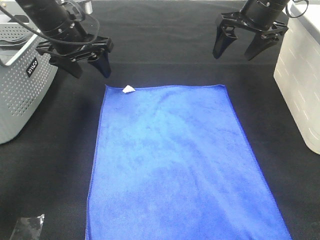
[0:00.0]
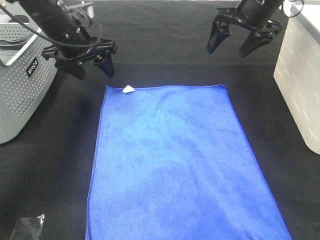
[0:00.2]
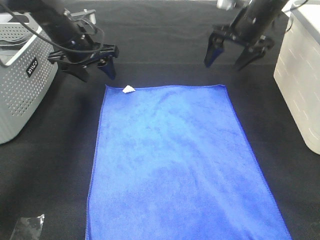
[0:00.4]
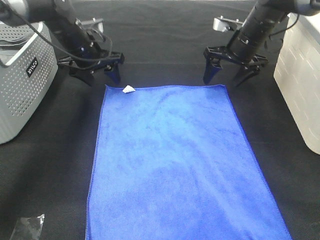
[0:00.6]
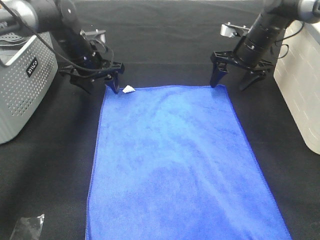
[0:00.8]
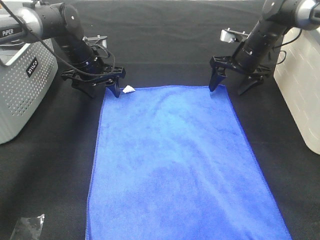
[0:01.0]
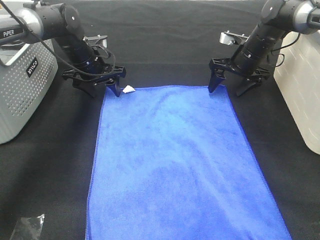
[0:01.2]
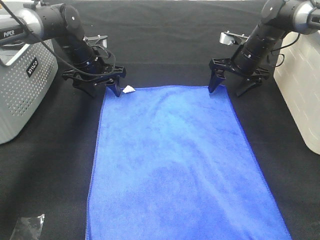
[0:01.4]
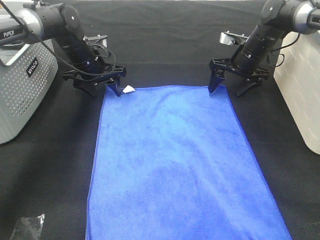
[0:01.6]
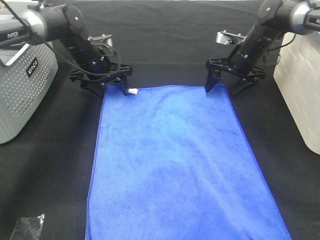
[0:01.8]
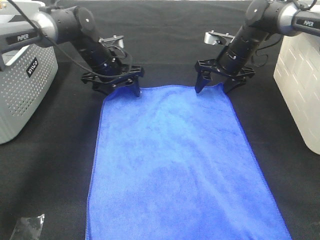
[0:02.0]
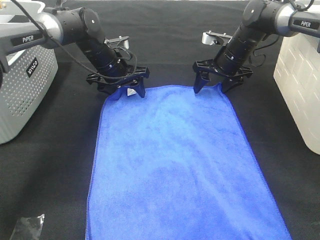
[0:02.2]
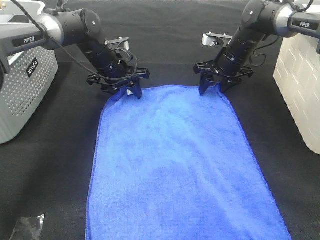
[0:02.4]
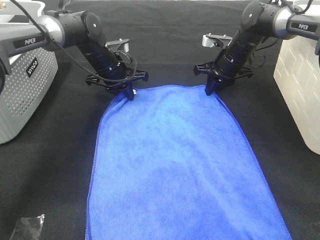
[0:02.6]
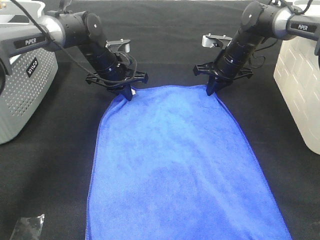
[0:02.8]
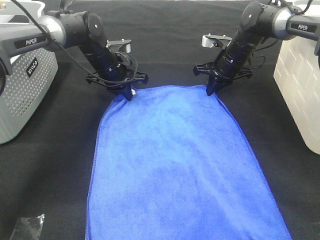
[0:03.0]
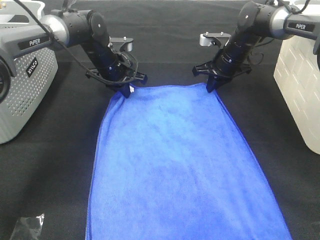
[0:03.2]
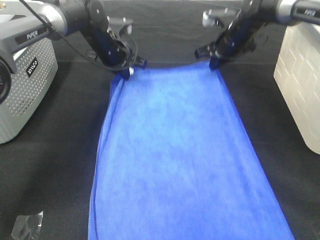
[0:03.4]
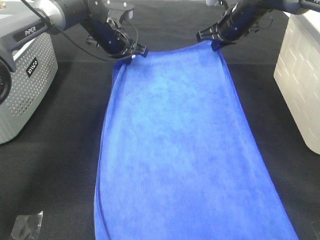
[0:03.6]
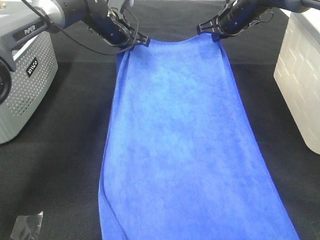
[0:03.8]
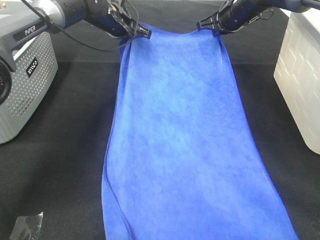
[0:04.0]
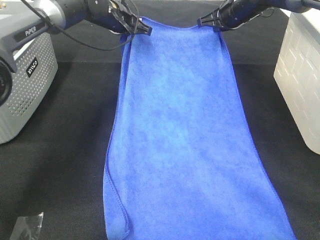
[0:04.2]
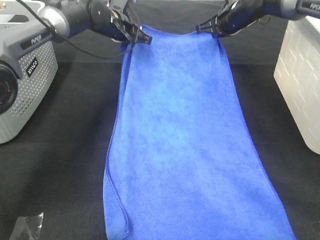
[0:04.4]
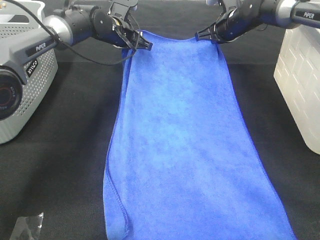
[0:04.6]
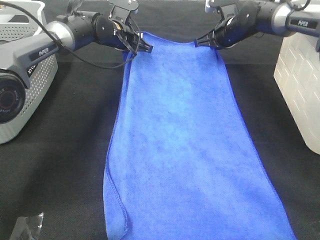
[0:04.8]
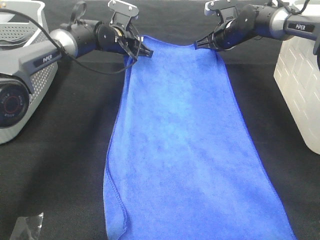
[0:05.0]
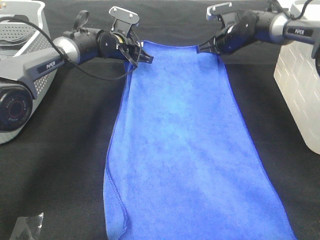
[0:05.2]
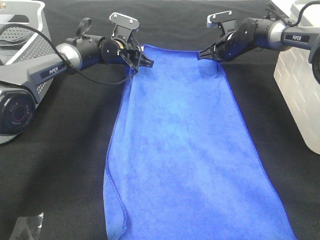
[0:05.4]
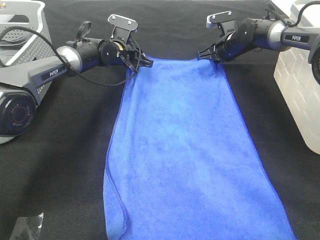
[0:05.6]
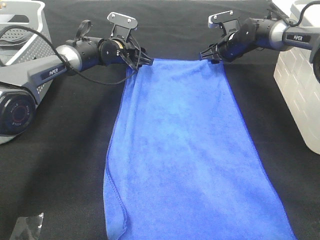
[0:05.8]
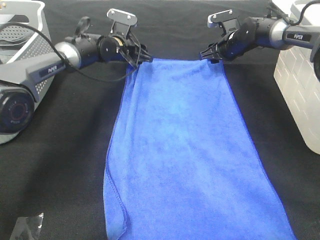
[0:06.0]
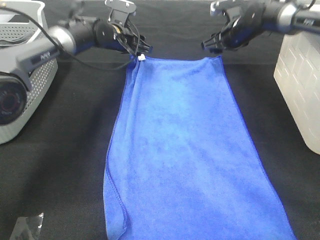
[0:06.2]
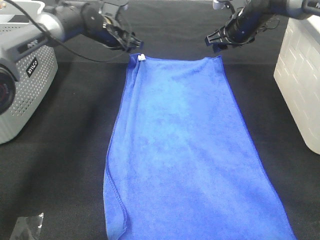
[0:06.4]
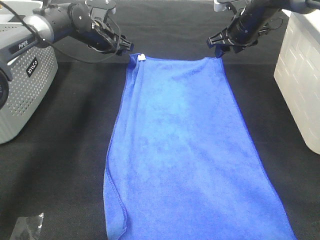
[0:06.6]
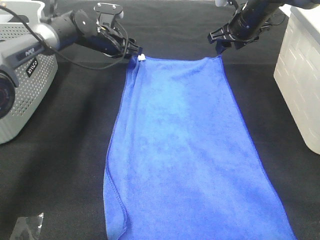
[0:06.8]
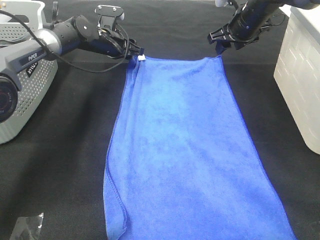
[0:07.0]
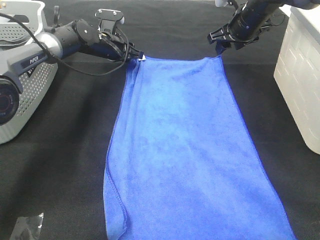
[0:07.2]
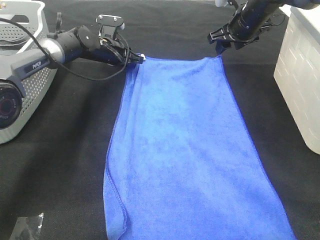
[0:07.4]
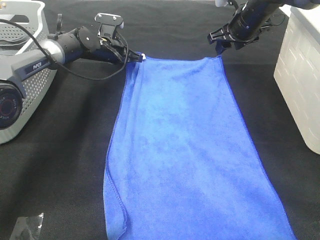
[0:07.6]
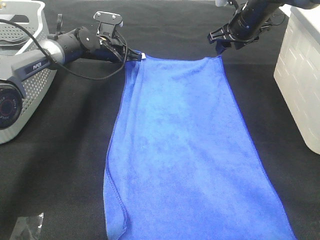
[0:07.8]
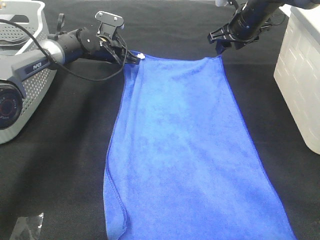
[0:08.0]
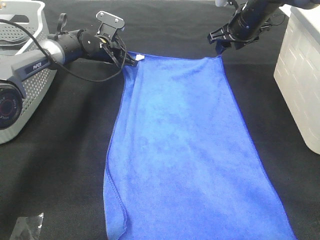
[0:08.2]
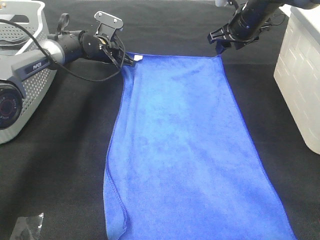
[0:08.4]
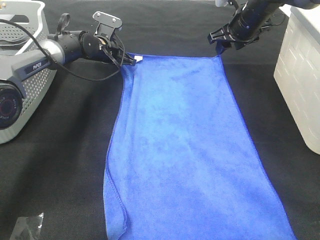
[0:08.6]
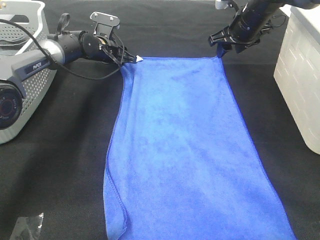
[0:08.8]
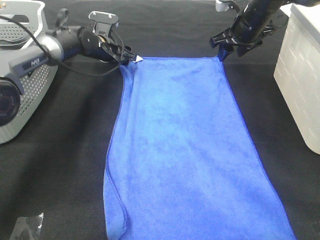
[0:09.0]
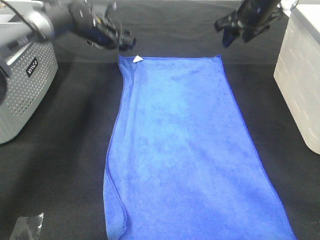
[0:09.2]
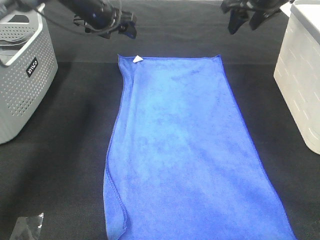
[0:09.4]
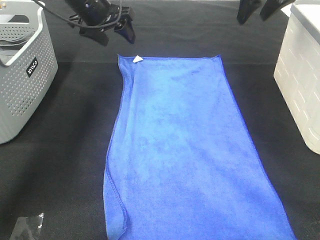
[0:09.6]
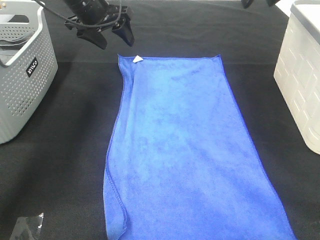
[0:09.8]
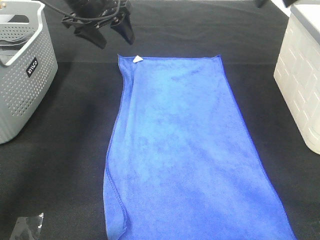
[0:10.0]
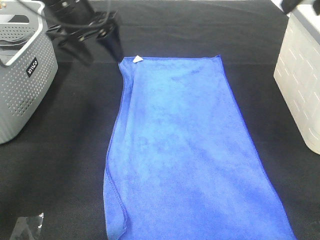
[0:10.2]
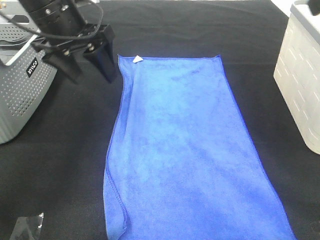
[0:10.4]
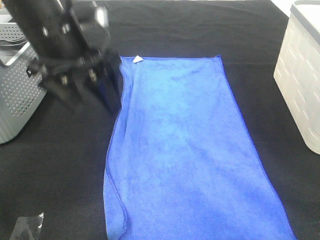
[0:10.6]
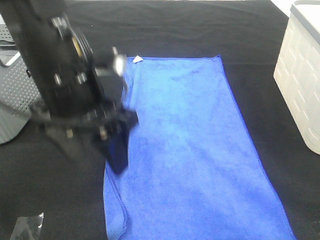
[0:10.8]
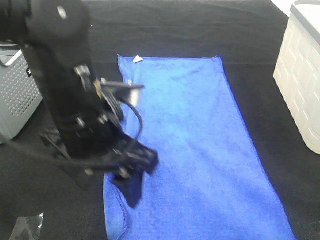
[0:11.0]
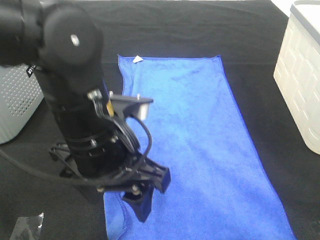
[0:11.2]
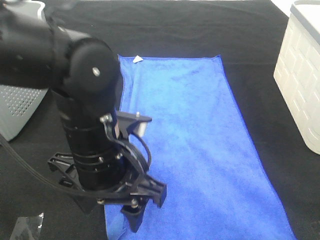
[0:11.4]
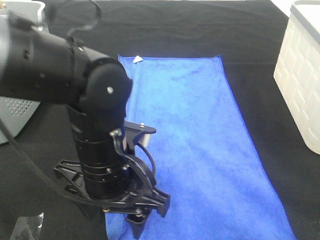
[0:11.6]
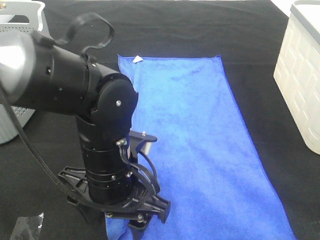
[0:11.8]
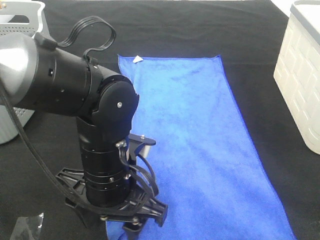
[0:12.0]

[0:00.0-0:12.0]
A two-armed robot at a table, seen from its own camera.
Task of the whole recording: Remove the towel and place it.
Step, 0:00.0 to 0:06.4: Left hand:adjust the blue towel.
0:00.0 to 0:01.6: The left gripper moves downward and forward, about 15 cm; the right gripper shifts some 15 cm downward.
0:01.6 to 0:03.0: The right gripper closes up. Meanwhile the left gripper closes its fingers.
0:03.0 to 0:04.4: The left gripper moves upward and forward, about 10 cm. The right gripper travels upward by roughly 10 cm.
0:04.4 to 0:06.0: The two grippers go about 5 cm downward. The right gripper opens up; the left gripper opens its fingers.
0:06.0 to 0:07.6: The right gripper moves upward, approximately 10 cm. The left gripper closes.
0:07.6 to 0:09.0: The left gripper opens up.
0:09.0 to 0:10.4: Both grippers move backward and upward, roughly 30 cm.
0:10.4 to 0:12.0: The left gripper moves backward, downward and to the right, about 25 cm. The right gripper travels backward by roughly 15 cm.

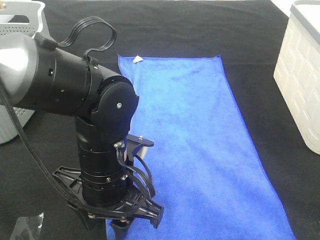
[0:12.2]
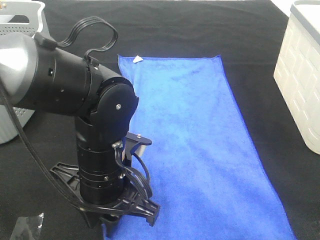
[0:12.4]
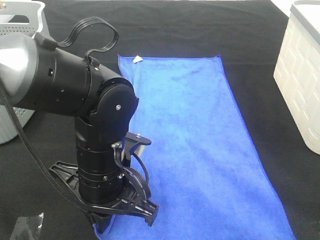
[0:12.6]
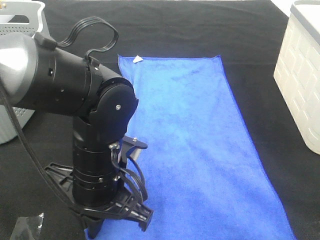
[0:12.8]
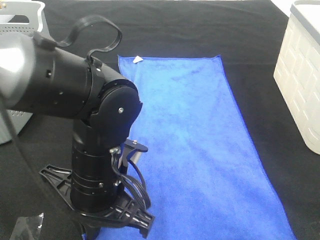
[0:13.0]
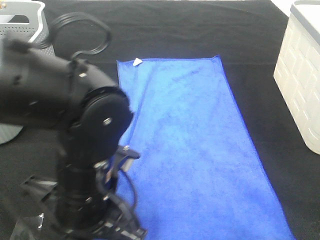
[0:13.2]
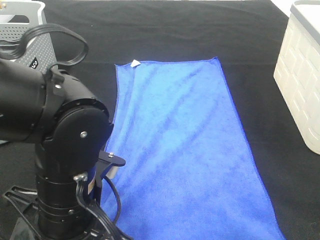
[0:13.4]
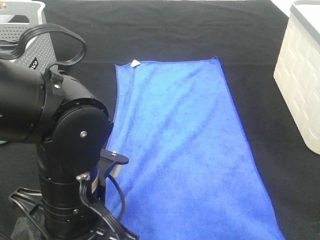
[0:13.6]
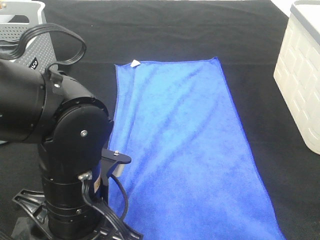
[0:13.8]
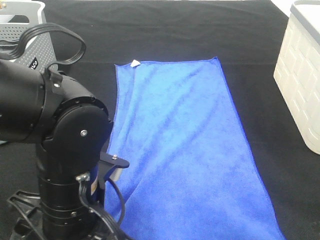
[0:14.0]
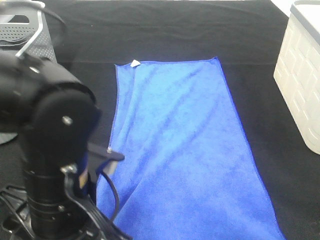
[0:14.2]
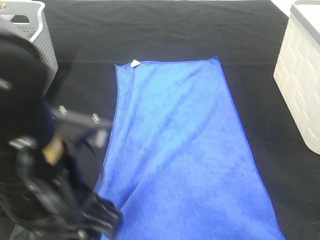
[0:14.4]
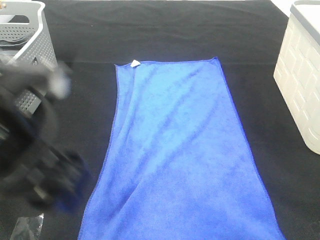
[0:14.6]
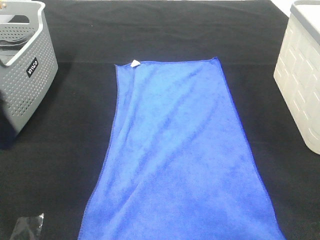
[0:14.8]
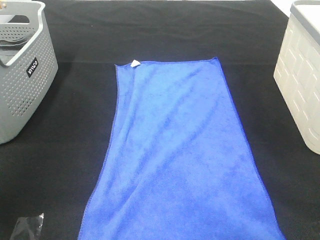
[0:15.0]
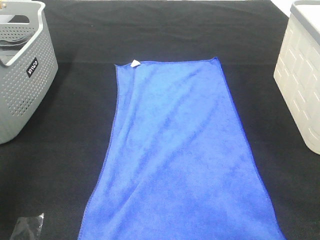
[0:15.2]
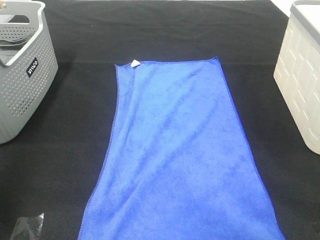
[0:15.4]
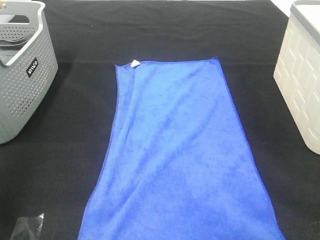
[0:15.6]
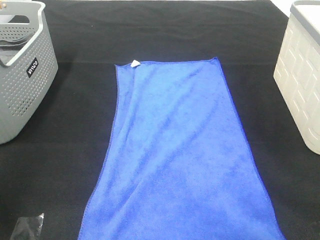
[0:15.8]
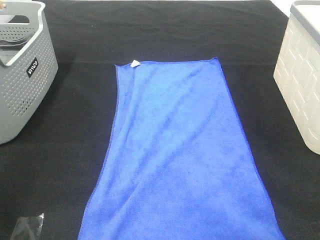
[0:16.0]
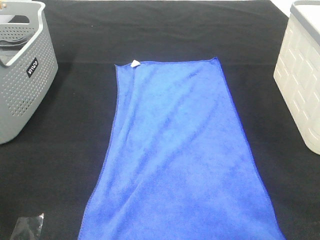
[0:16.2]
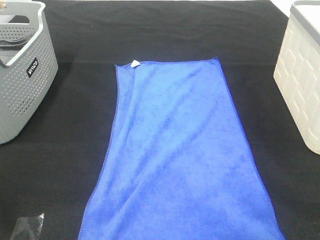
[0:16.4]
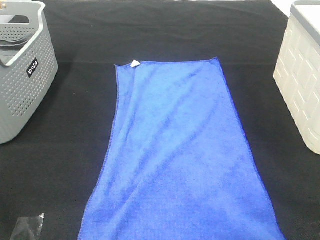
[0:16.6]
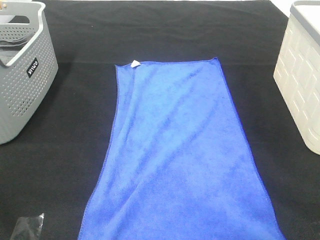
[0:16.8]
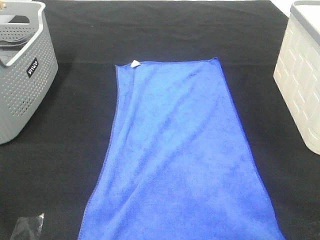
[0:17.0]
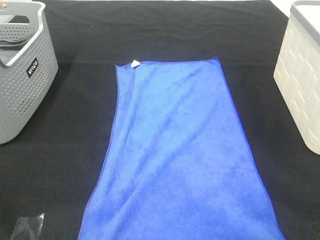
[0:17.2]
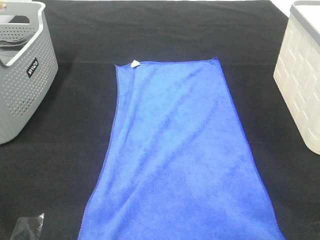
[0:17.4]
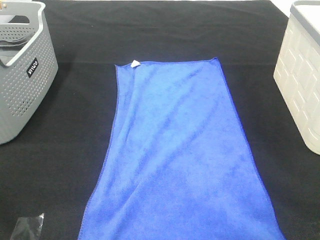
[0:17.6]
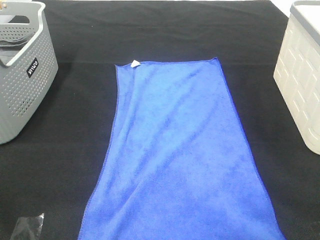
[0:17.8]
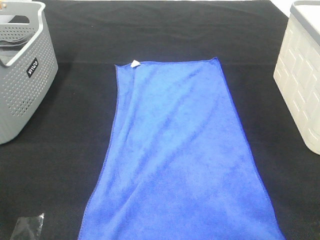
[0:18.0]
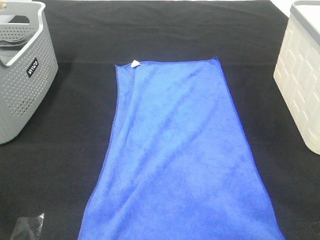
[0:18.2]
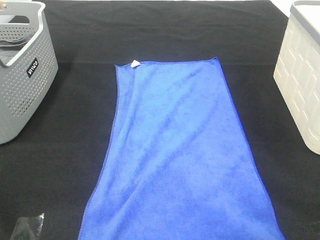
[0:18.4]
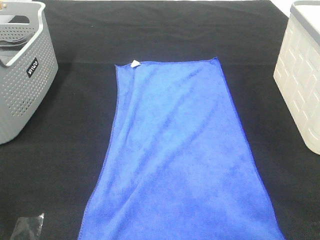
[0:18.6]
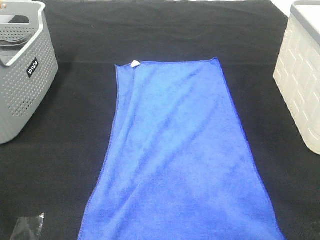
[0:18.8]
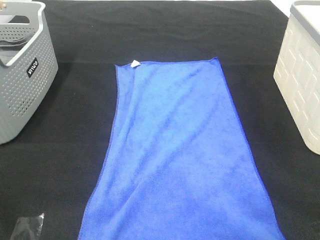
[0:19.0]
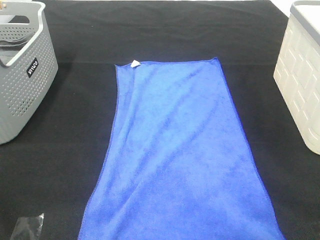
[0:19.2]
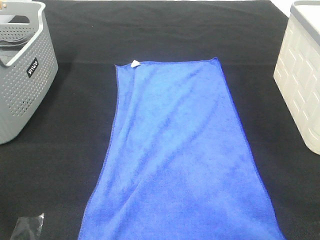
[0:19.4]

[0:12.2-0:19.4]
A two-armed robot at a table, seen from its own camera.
Task of the whole recording: Remove the towel and place it.
0:12.2 to 0:13.6: The left gripper shifts by roughly 5 cm, and closes its fingers.
0:13.6 to 0:15.0: The left gripper is displaced to the left and upward by approximately 25 cm, and opens its fingers.

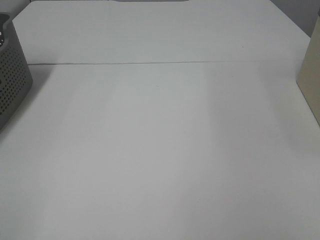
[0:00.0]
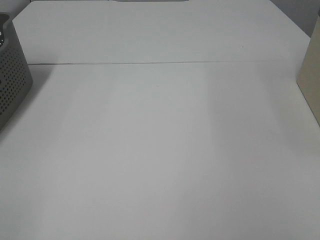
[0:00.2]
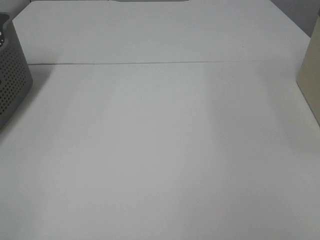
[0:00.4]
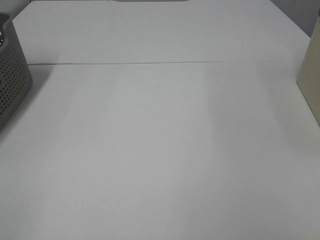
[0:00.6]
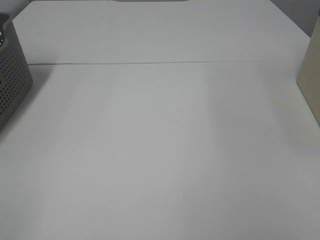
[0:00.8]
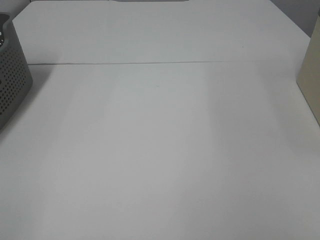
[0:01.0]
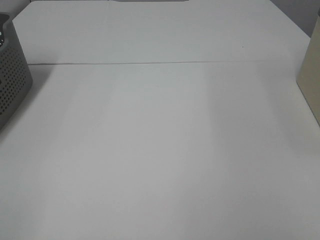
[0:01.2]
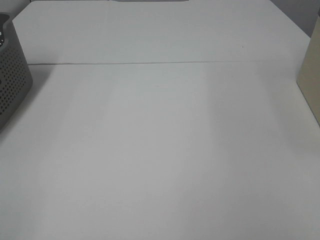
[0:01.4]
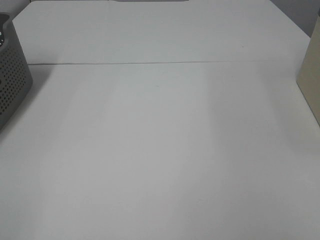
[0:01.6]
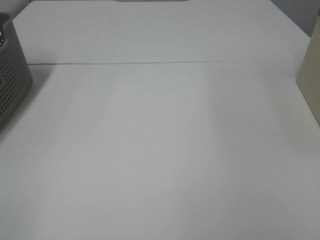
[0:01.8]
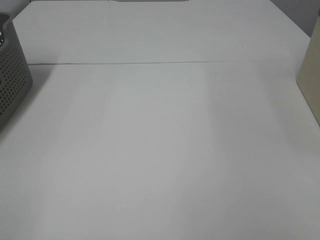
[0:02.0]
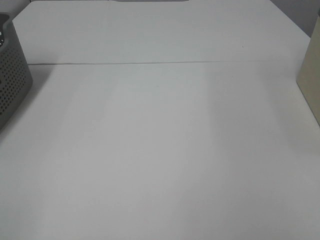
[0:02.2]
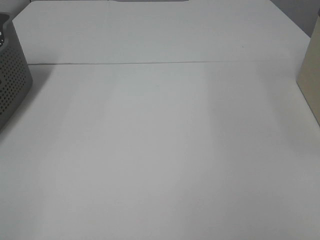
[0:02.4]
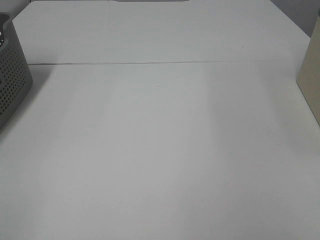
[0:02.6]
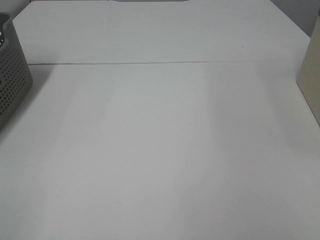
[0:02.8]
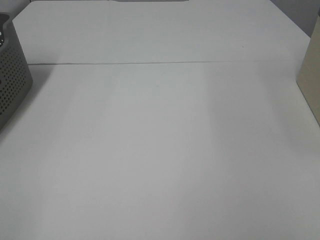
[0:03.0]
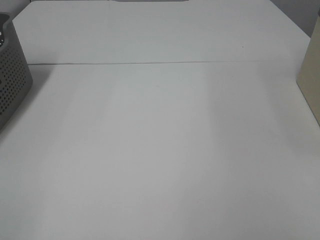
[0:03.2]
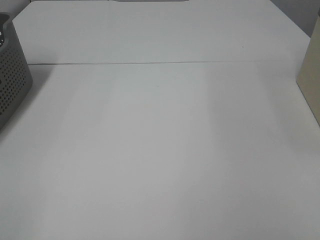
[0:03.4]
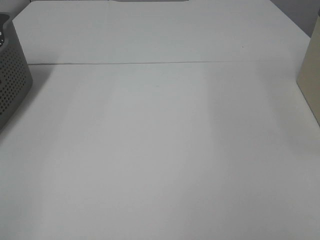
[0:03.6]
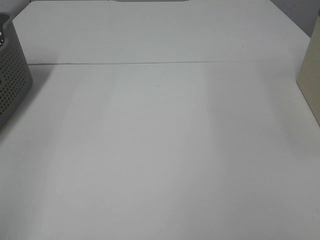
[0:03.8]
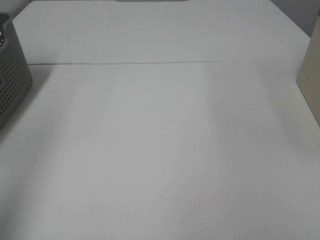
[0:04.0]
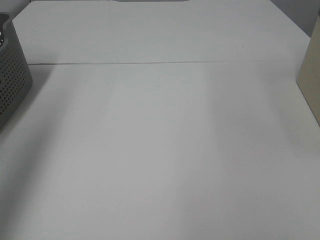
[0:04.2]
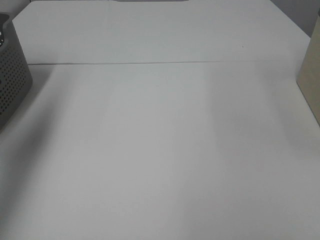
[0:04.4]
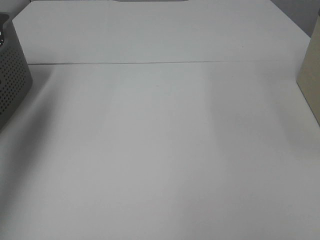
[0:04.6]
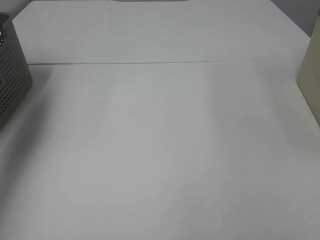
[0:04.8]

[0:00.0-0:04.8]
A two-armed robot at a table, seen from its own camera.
Task of the whole recording: Remove the towel and place it.
0:00.0 to 0:03.2: Both grippers stay put.
0:03.2 to 0:04.8: The left gripper is displaced forward by about 40 cm.
